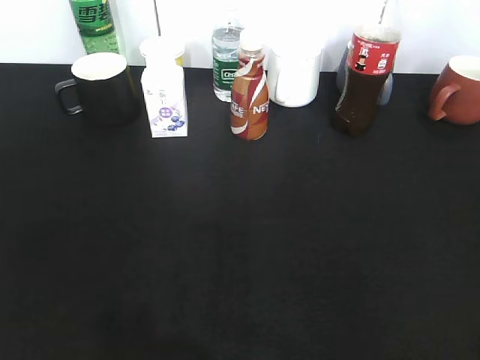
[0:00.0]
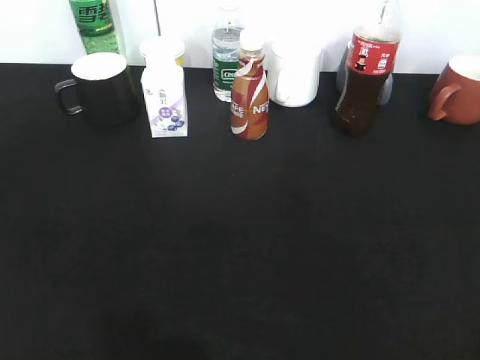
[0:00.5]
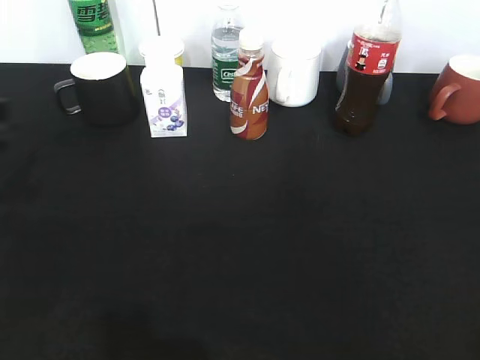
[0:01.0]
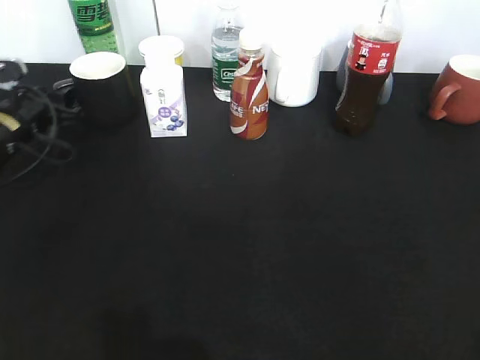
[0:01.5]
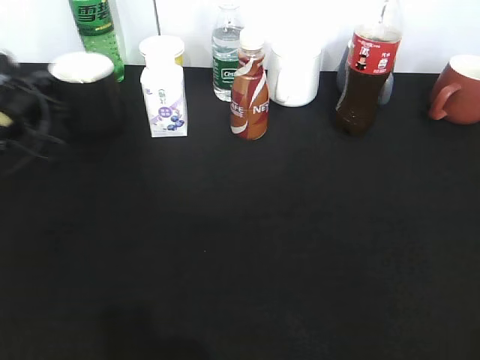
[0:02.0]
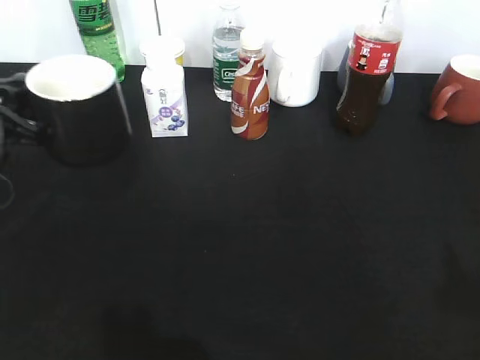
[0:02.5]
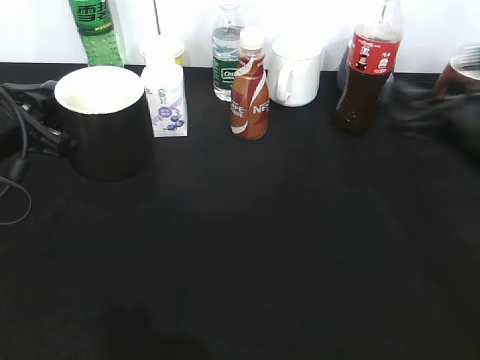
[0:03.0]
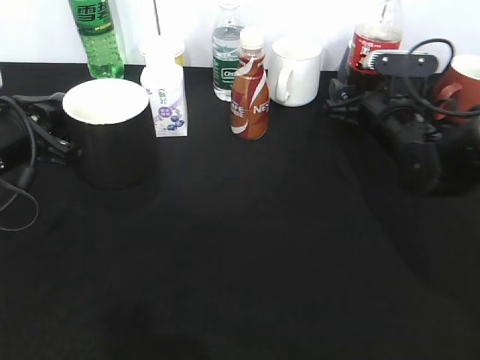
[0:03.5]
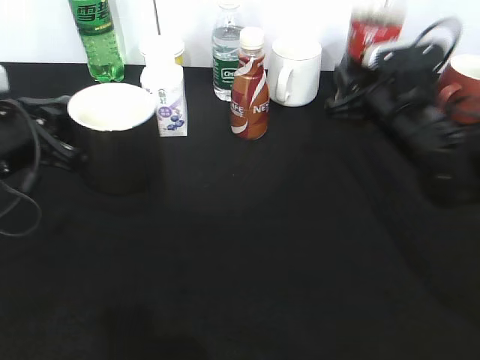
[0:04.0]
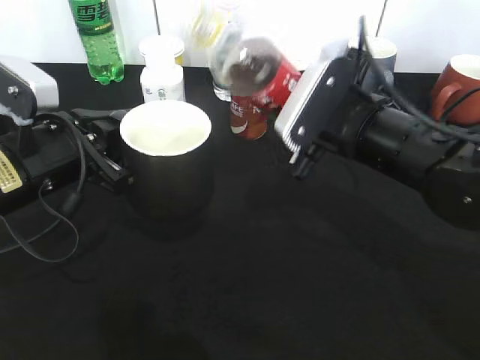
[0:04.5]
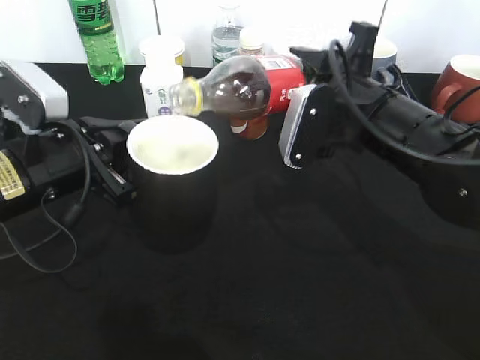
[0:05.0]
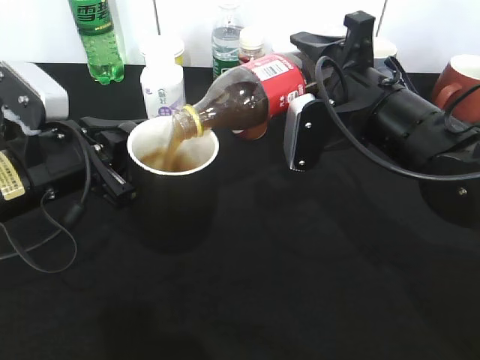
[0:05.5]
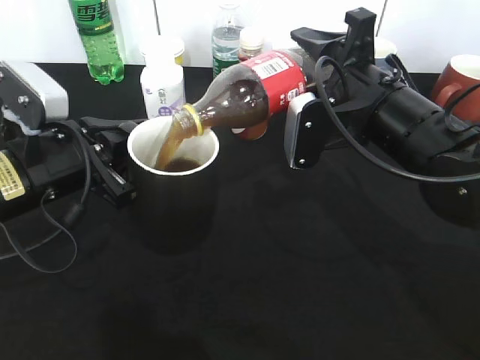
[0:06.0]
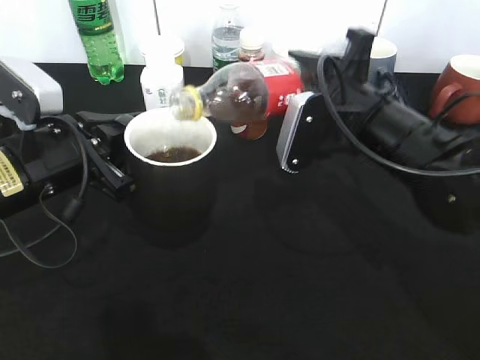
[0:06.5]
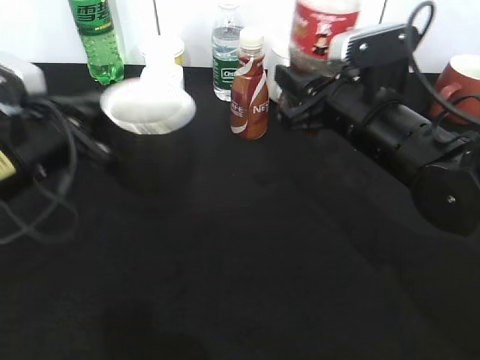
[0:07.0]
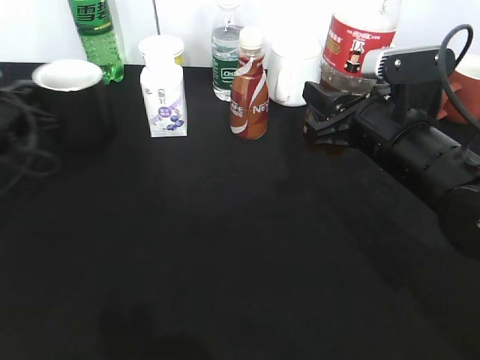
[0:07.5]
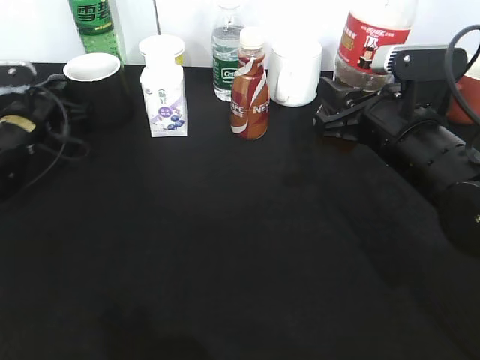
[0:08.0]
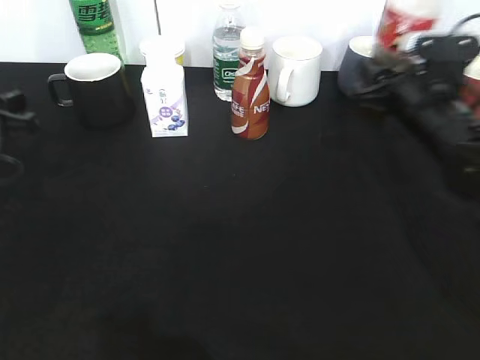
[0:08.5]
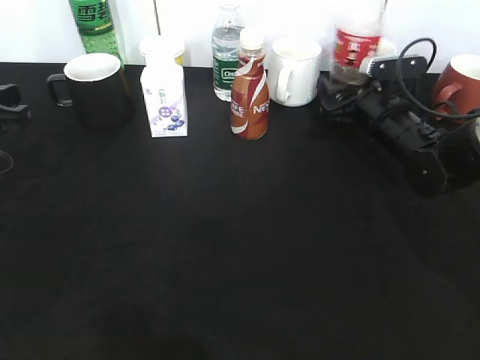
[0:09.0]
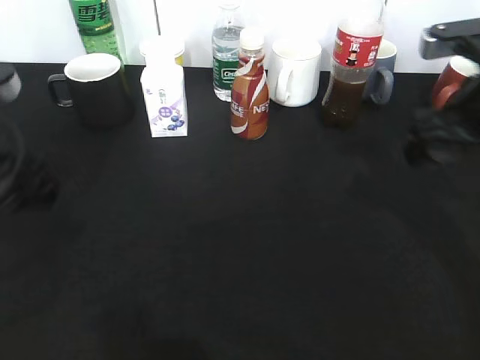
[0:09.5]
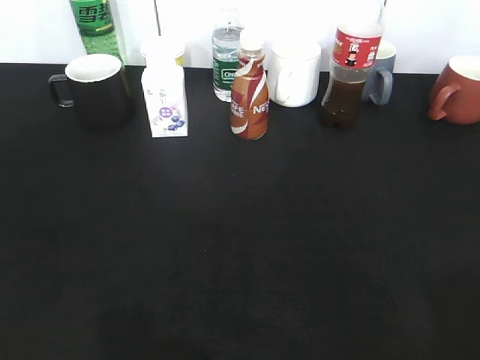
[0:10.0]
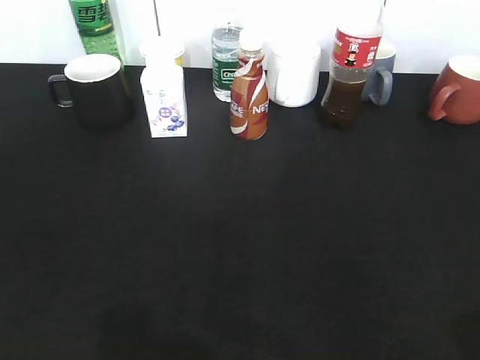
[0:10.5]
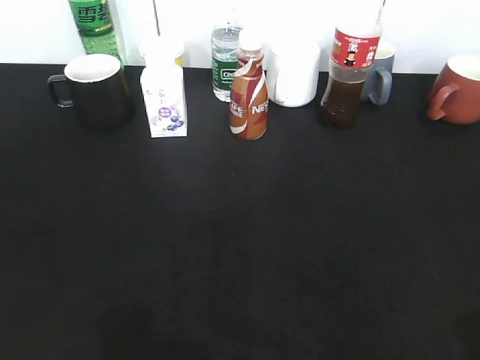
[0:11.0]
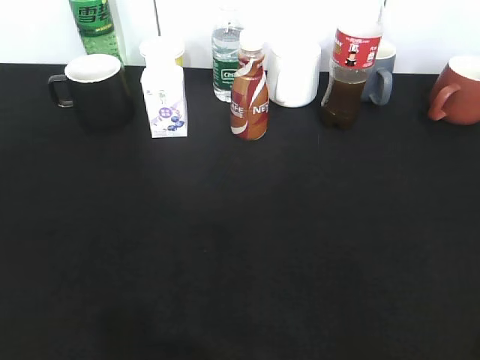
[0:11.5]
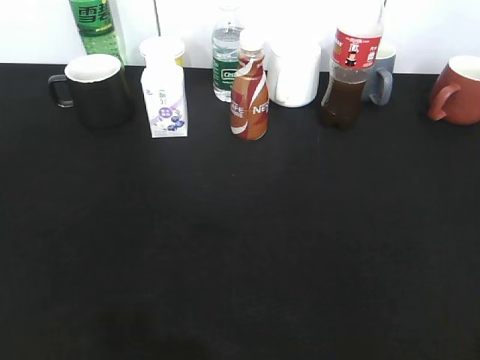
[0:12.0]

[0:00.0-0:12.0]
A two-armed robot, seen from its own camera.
Step, 0:02.0 to 0:02.5: Lift the black cup with left gripper.
Step, 0:03.0 to 0:03.5: Grasp the bottle with cola with right gripper.
Step, 0:04.0 to 0:06.5: Pour the cola from bottle to cup with right gripper.
Step, 0:07.0 to 0:08.0: Place the black cup on the table with left gripper.
Step, 0:08.5 to 0:09.0: Place the cola bottle on the table with right gripper.
0:00.0 to 0:02.0: The left gripper shifts some 40 cm forward, and closes its fingers.
0:02.0 to 0:04.0: The left gripper moves backward and to the right, roughly 15 cm. Meanwhile the right gripper shifts approximately 35 cm forward, and closes its fingers.
0:04.0 to 0:06.0: The right gripper heads backward, to the left and upward, covering about 10 cm. Meanwhile the left gripper shifts approximately 5 cm to the right.
0:06.0 to 0:08.0: The left gripper is displaced forward, to the left and downward by roughly 20 cm, and opens.
0:08.0 to 0:10.0: The right gripper is displaced backward, upward and to the right by about 30 cm, and opens up. Meanwhile the left gripper shifts roughly 40 cm backward and upward, and opens up.

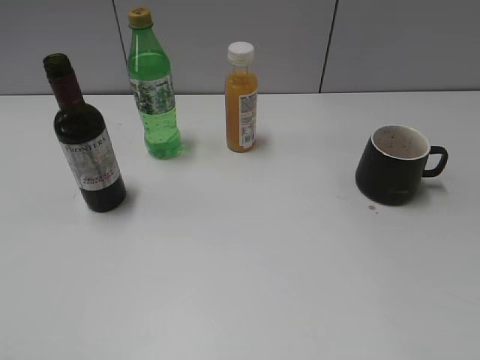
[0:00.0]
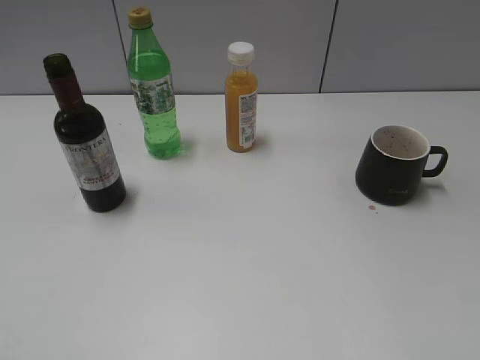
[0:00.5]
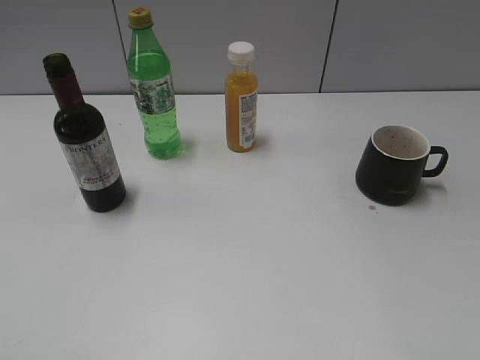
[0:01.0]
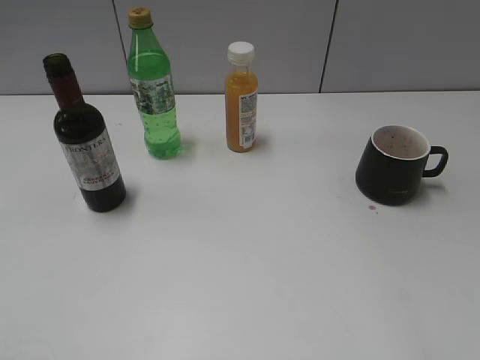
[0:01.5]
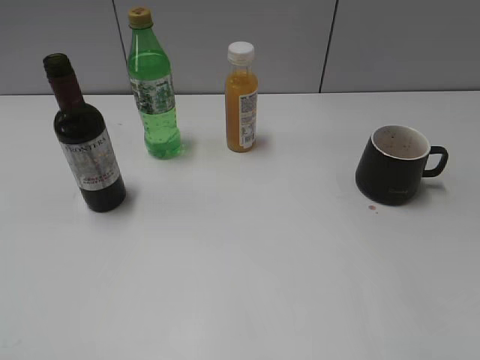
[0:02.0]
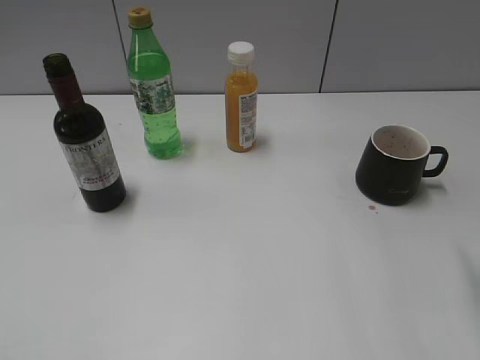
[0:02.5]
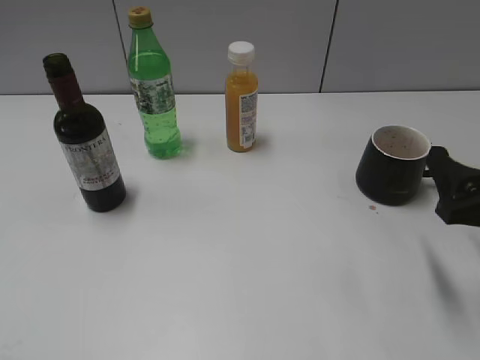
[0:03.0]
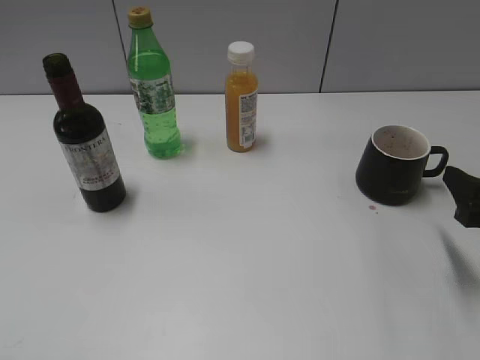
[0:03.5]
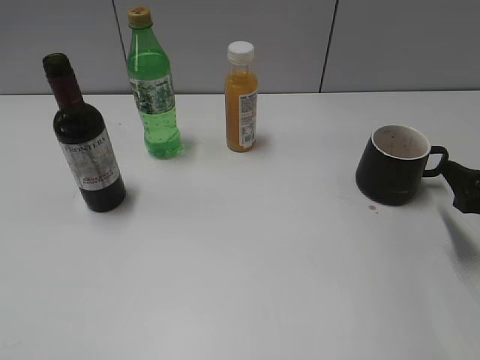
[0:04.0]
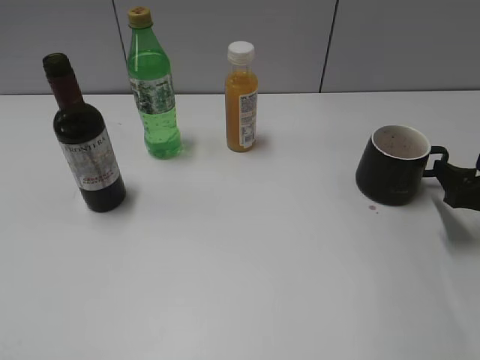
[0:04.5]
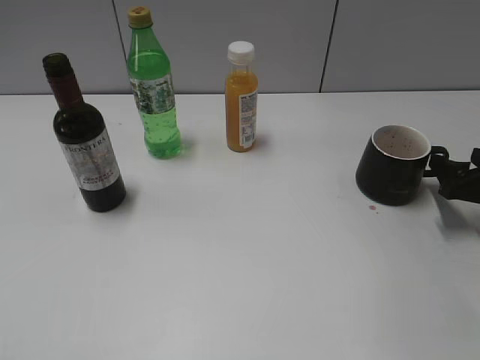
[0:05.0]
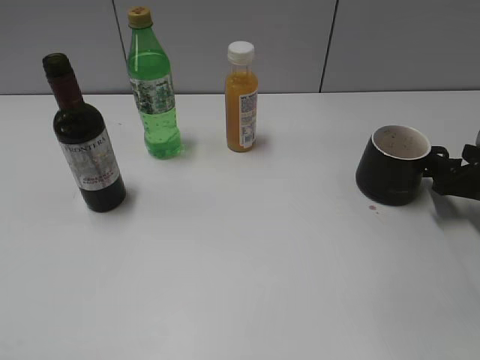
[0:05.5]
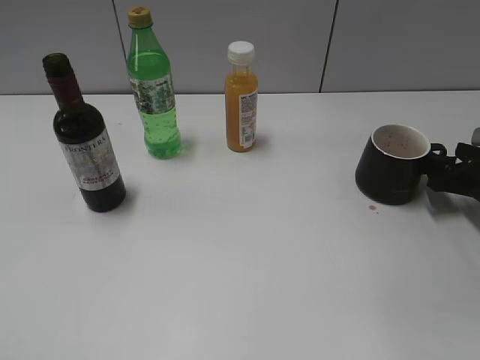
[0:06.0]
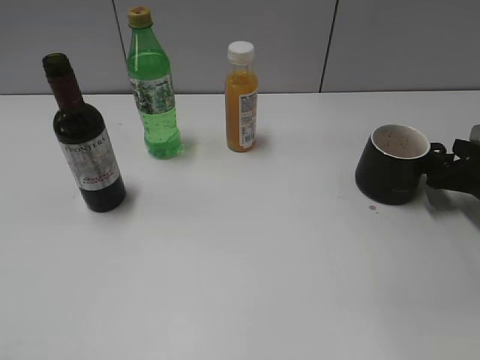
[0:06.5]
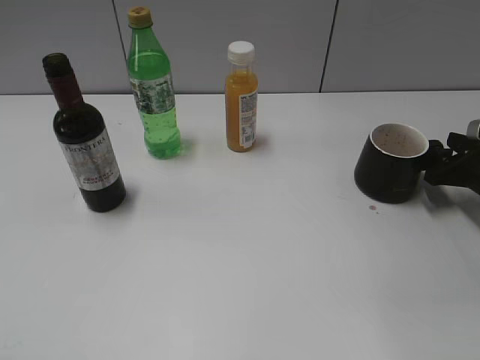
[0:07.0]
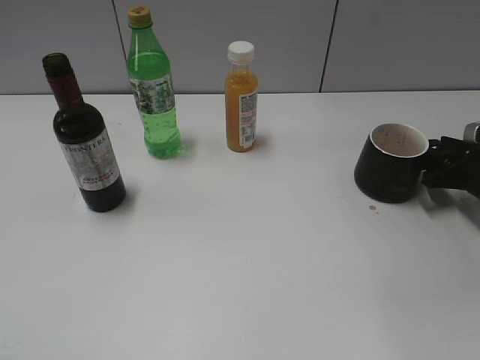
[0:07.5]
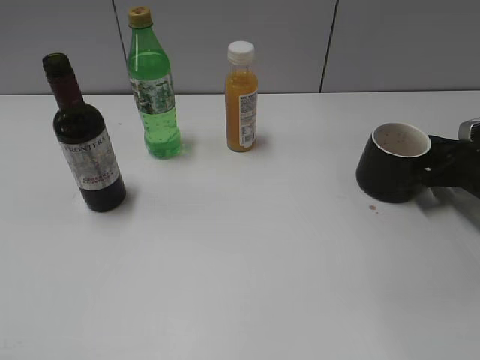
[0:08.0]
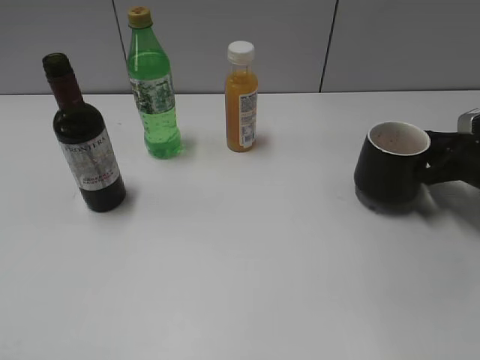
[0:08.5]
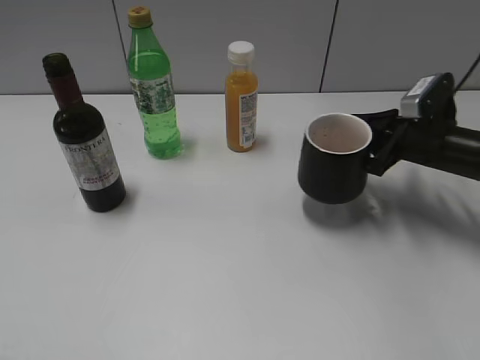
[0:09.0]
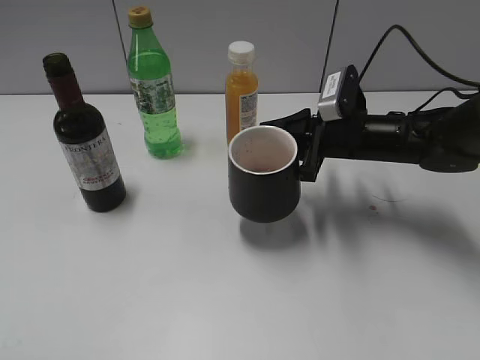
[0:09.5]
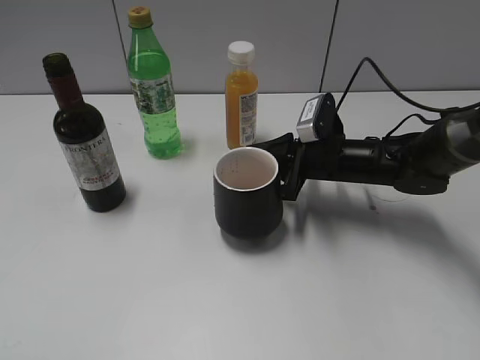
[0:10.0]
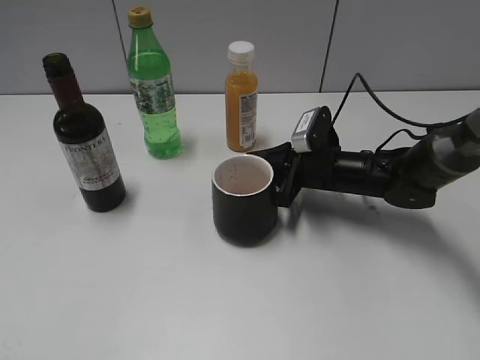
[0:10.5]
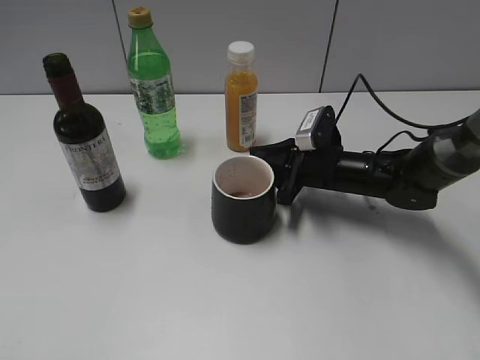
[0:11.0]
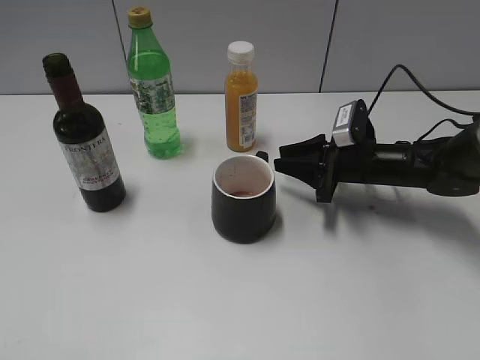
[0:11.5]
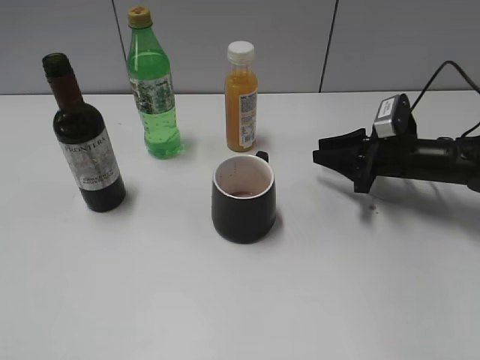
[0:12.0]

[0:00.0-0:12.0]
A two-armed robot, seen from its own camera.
Step, 0:03.0 to 0:08.0: Grasp the black cup with right gripper.
Step, 0:08.5 to 0:11.5: Place the black cup in the center of view with right gripper.
0:02.0 to 0:04.0: The right gripper goes about 20 cm downward and forward.
0:04.0 to 0:06.0: The right gripper heads forward and downward, covering some 10 cm.
0:06.0 to 0:08.0: The right gripper closes.
0:08.0 to 0:10.0: The right gripper travels to the left by some 20 cm.
0:10.0 to 0:12.0: The right gripper goes some 10 cm to the right, and opens.

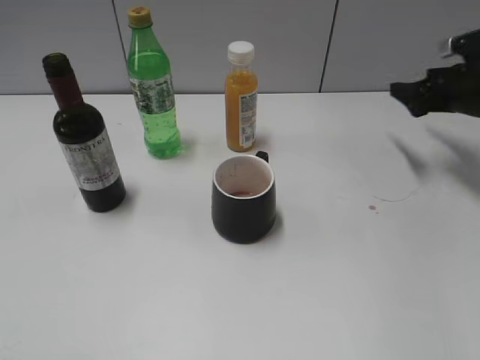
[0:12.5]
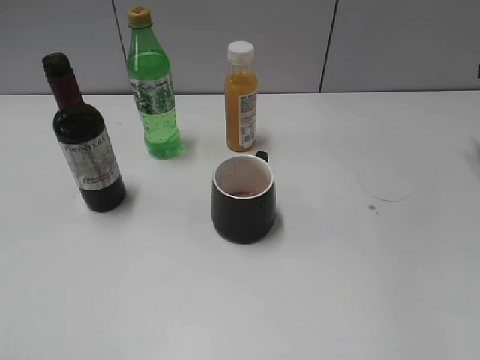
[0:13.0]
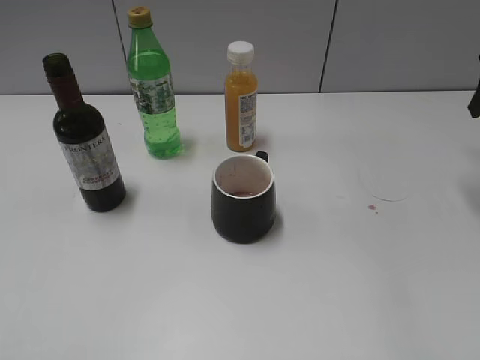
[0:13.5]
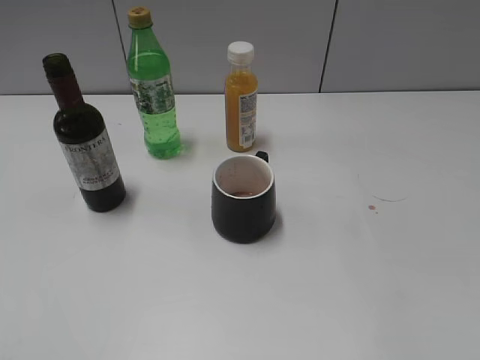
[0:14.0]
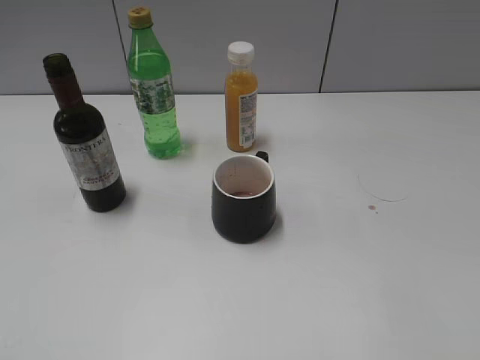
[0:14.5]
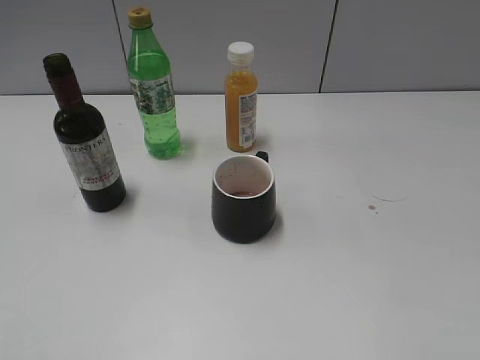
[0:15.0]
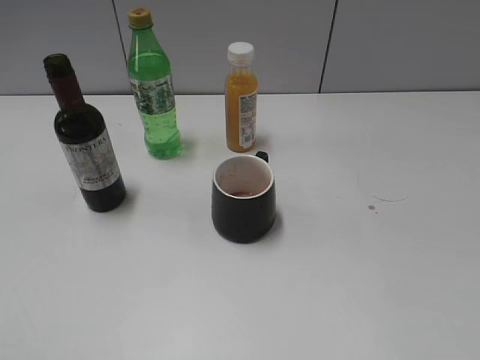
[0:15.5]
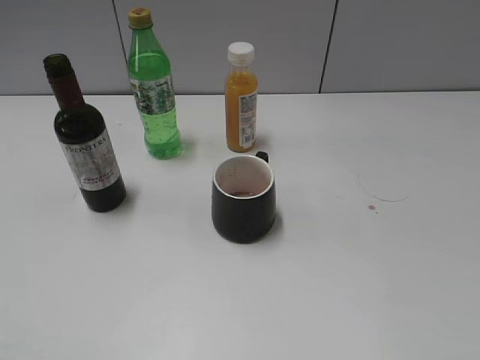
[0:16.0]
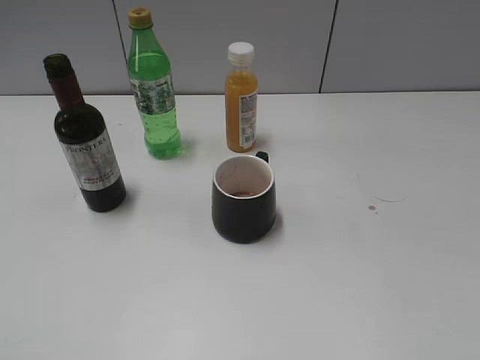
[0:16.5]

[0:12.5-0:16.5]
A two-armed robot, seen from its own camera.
0:12.5 to 0:14.5: The right gripper moves backward and upward, about 30 cm.
